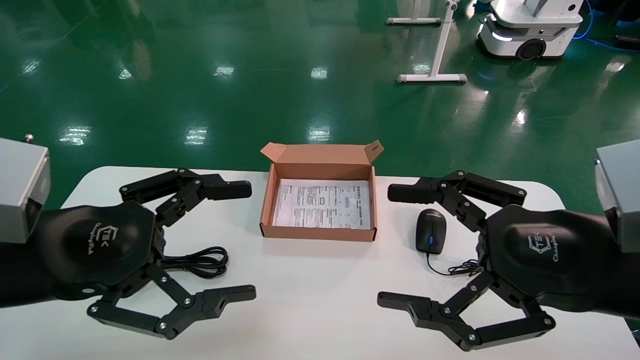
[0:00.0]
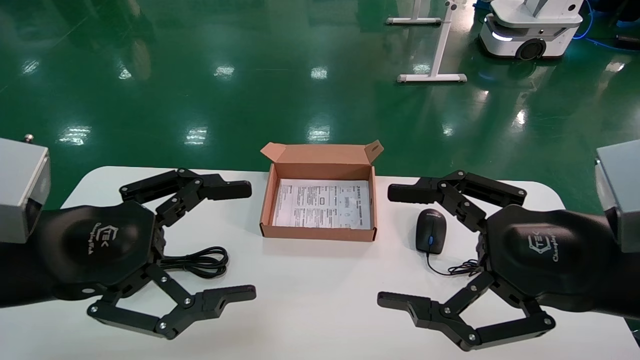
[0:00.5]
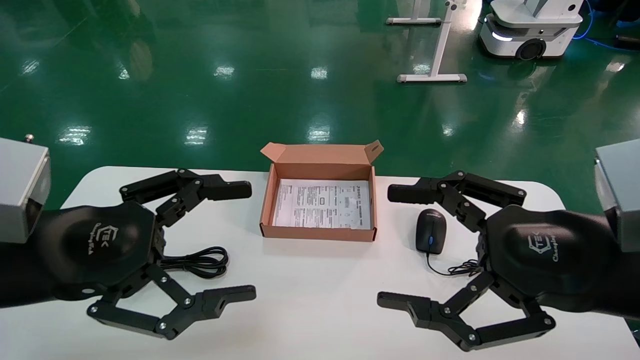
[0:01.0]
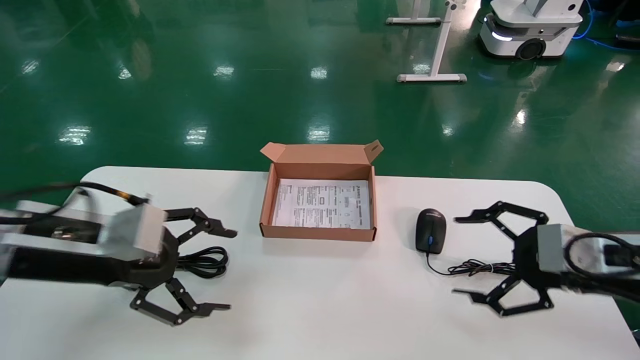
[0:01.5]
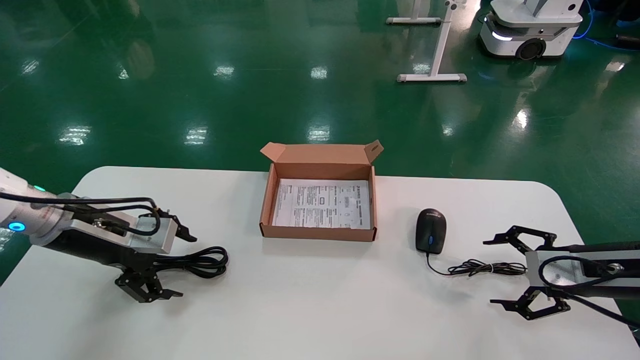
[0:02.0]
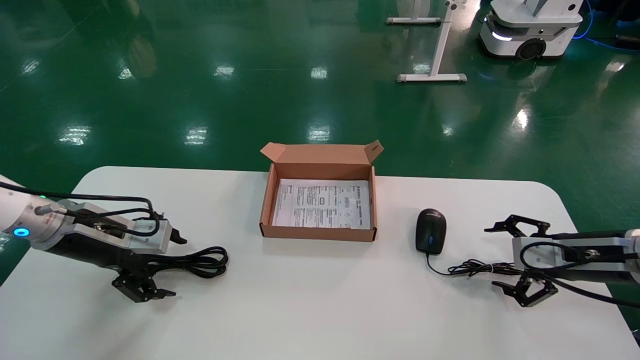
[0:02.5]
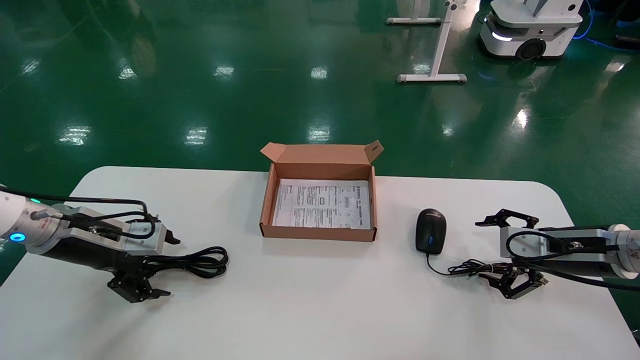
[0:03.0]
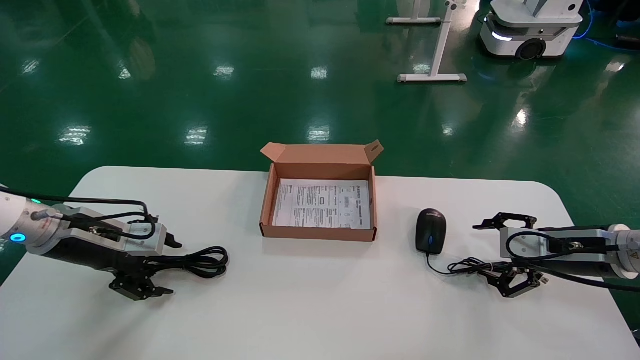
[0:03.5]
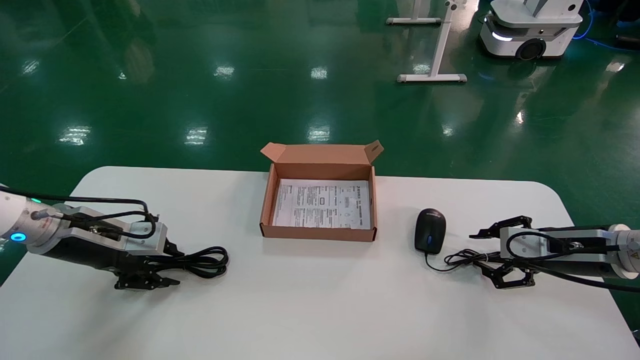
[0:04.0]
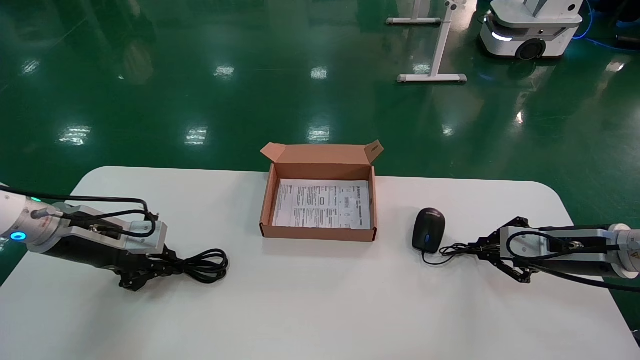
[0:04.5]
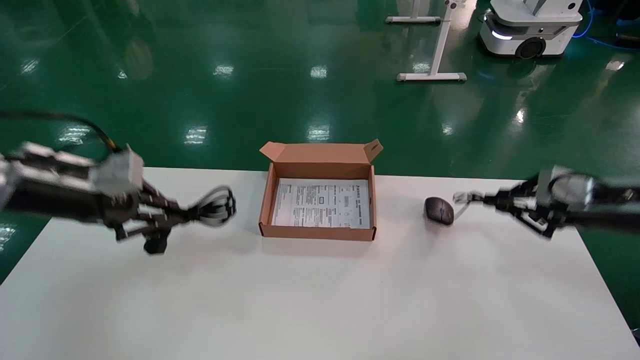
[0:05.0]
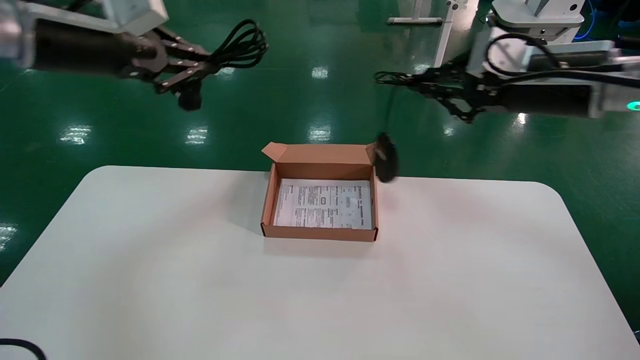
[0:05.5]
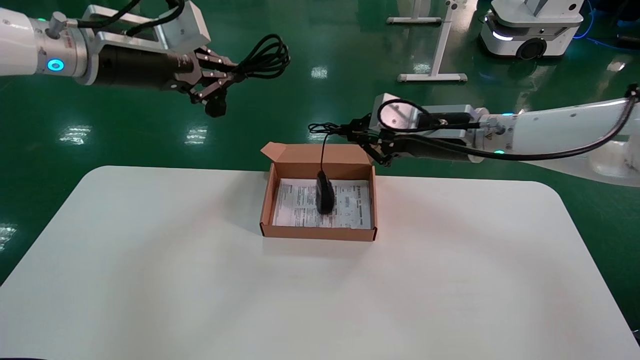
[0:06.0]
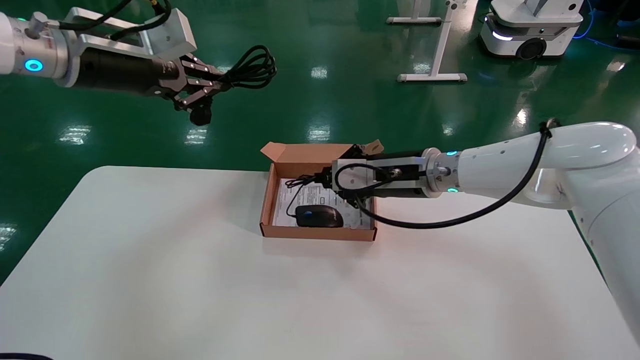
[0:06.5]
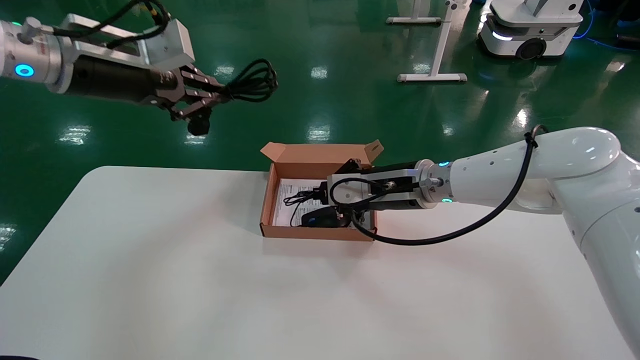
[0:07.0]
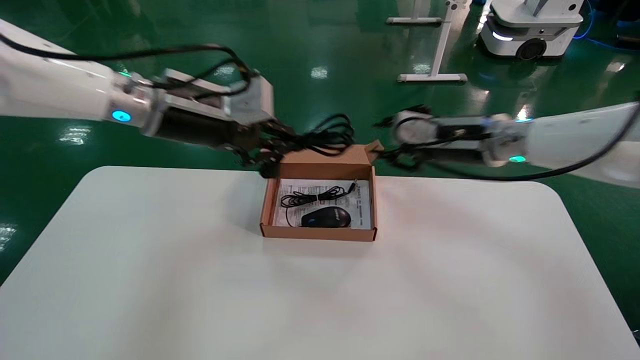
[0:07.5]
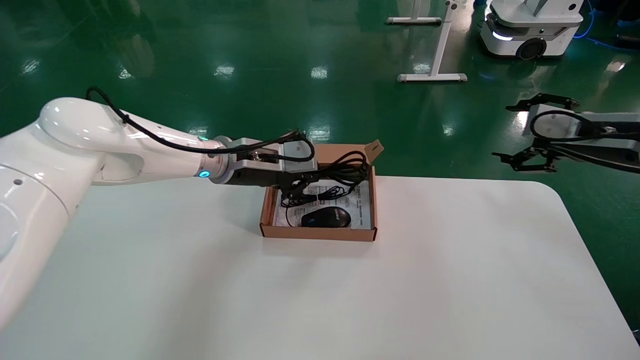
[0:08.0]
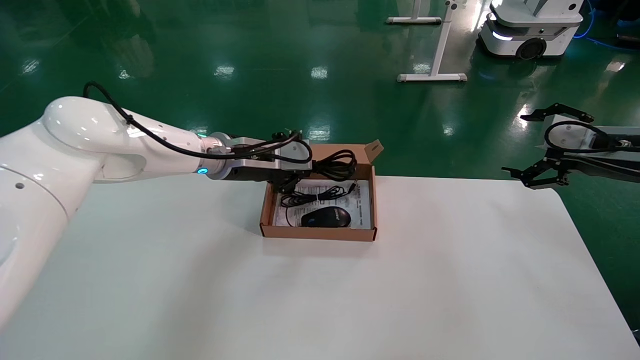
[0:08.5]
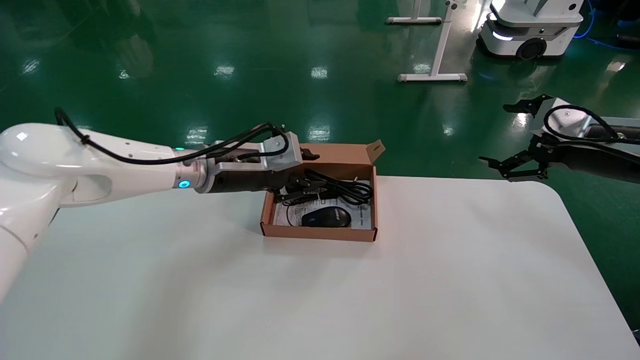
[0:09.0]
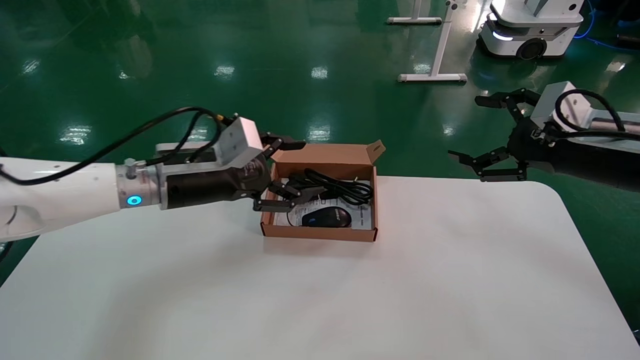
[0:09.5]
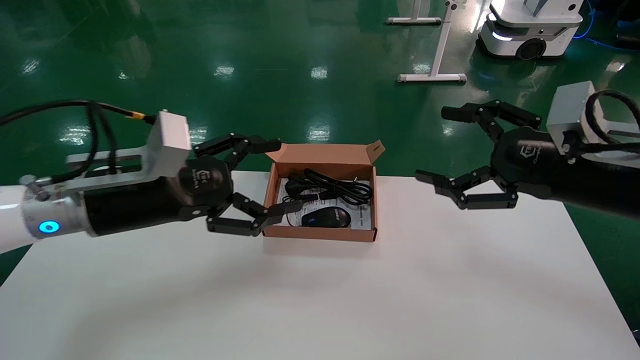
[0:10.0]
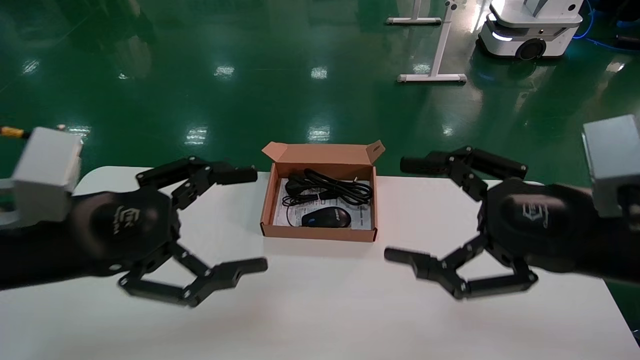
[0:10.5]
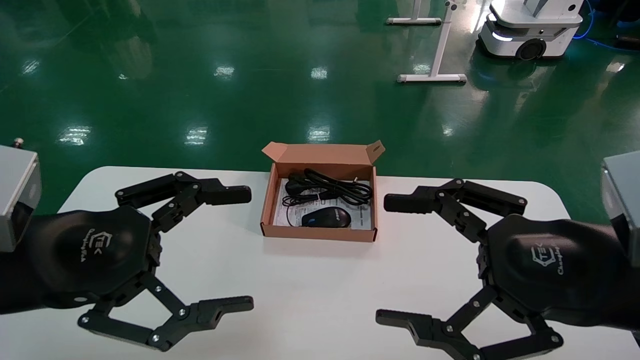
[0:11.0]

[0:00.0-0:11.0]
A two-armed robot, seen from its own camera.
Step, 0:01.5 to 0:04.5: Grab and lift both the mouse and power cord from the accessory packaging area at the same time.
Step, 0:05.0 to 0:09.0: Place the mouse and power cord into the box.
0:00.0 to 0:02.0: The left gripper is displaced forward by roughly 15 cm. Meanwhile the right gripper is displaced forward, to the right and downward by some 20 cm.
0:02.0 to 0:03.5: The grippers move only a little.
0:03.5 to 0:05.5: The right gripper goes roughly 25 cm upward and to the left, and closes its fingers. Meanwhile the left gripper travels upward by approximately 25 cm, and closes its fingers.
0:05.5 to 0:07.5: The left gripper travels to the right and downward by approximately 15 cm. Meanwhile the right gripper shifts some 10 cm downward and forward, and moves about 15 cm to the left and comes back.
0:07.5 to 0:09.0: The right gripper travels to the right by about 15 cm, and opens its fingers, while the left gripper shifts approximately 10 cm downward.
0:09.0 to 0:11.0: The left gripper moves backward, some 25 cm, and opens up; the right gripper heads backward and to the left, covering about 25 cm.

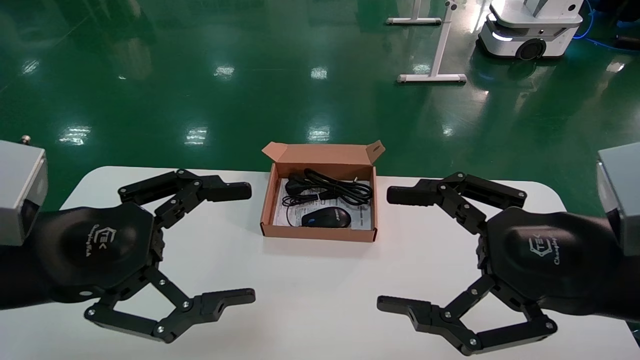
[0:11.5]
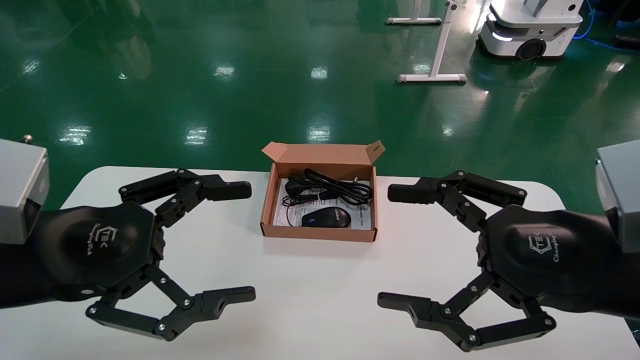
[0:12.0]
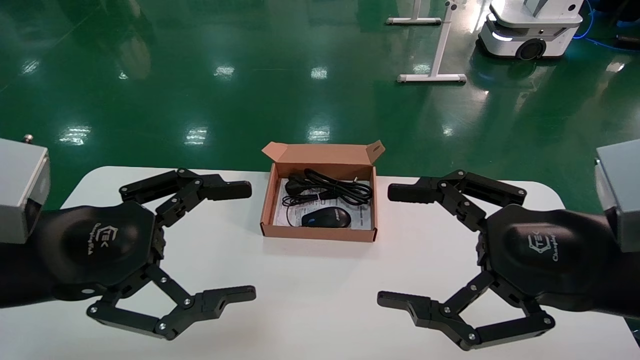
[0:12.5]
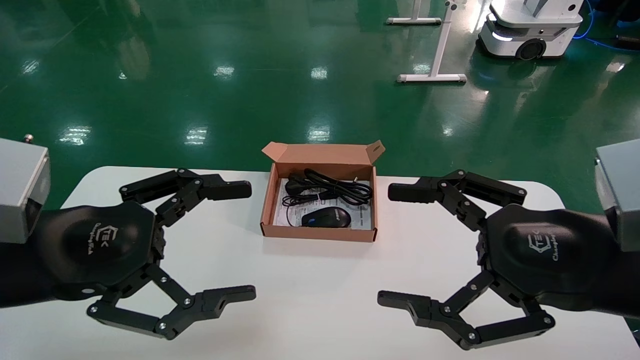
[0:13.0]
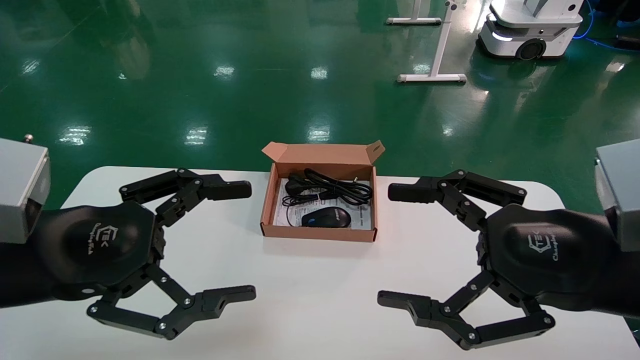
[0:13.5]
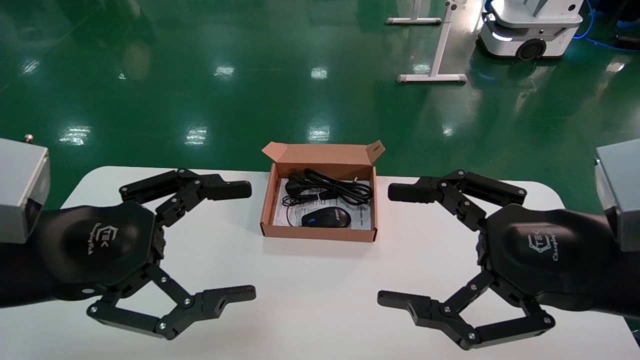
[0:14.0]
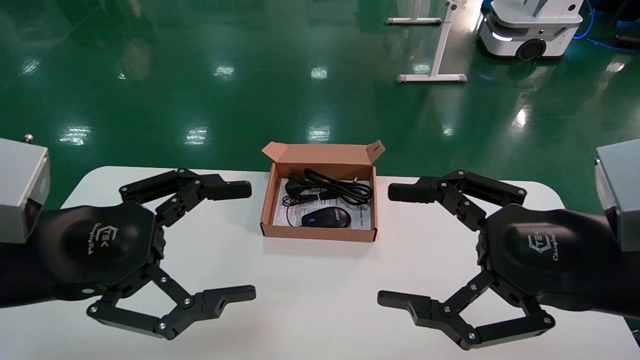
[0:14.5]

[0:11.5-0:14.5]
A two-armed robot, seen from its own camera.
0:11.5 to 0:14.5: Both grippers stay about where they are.
